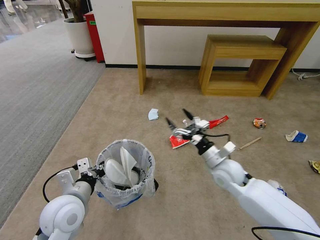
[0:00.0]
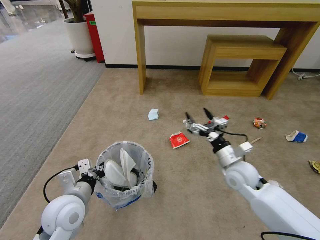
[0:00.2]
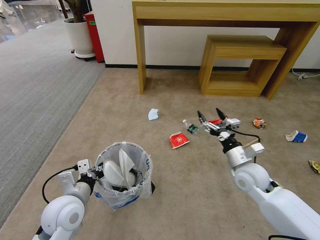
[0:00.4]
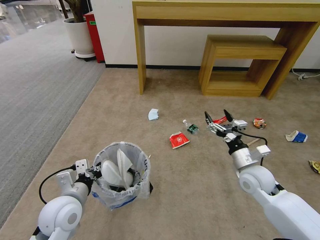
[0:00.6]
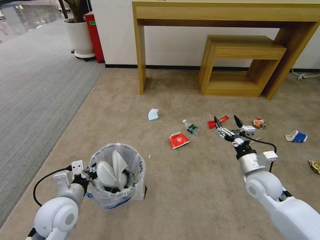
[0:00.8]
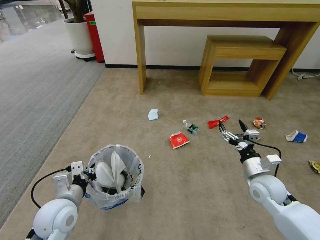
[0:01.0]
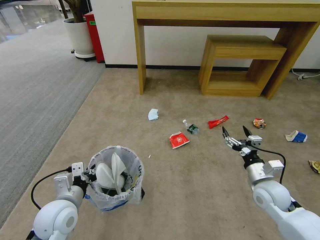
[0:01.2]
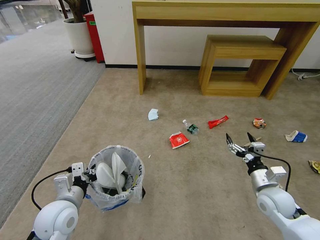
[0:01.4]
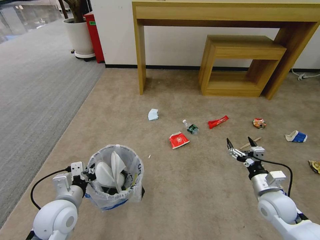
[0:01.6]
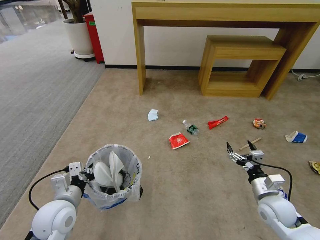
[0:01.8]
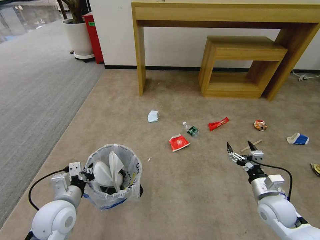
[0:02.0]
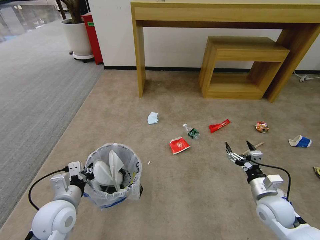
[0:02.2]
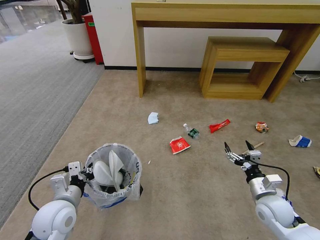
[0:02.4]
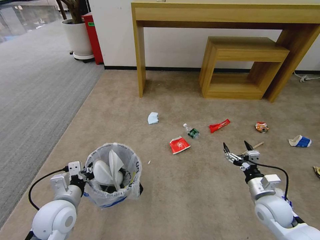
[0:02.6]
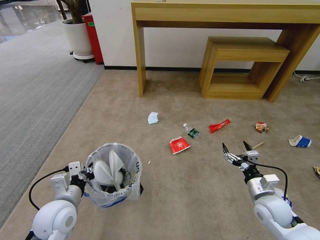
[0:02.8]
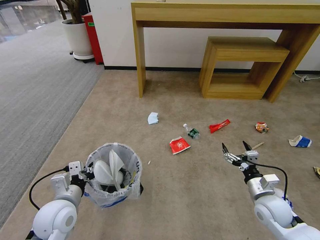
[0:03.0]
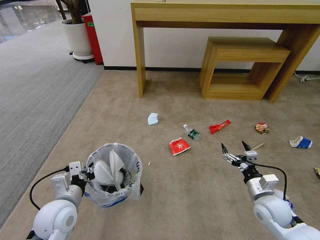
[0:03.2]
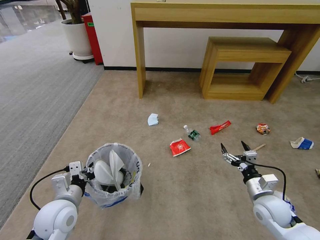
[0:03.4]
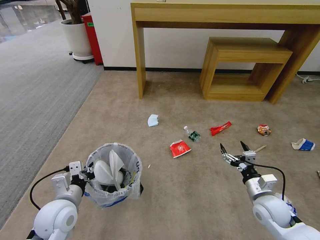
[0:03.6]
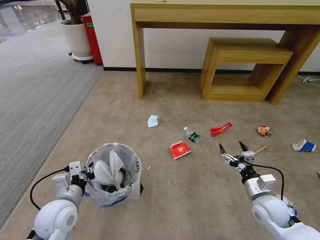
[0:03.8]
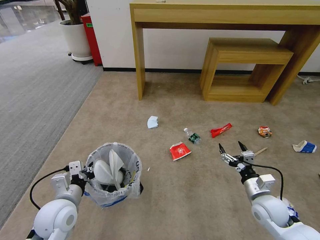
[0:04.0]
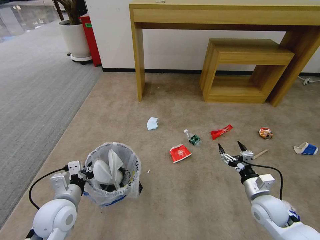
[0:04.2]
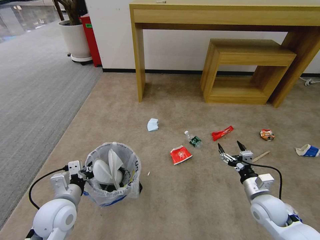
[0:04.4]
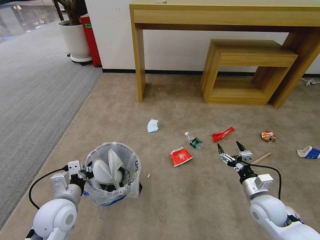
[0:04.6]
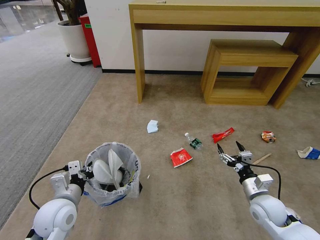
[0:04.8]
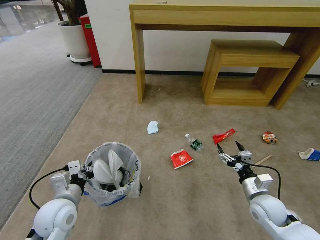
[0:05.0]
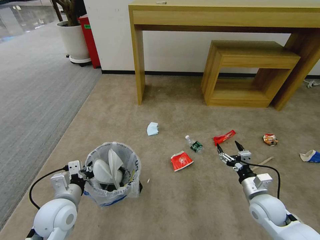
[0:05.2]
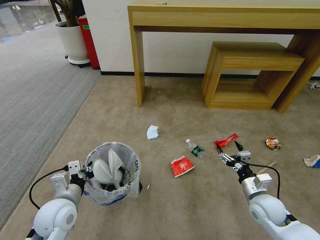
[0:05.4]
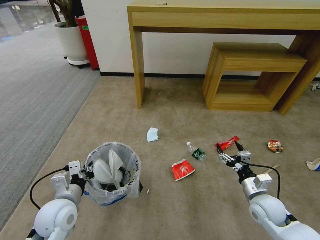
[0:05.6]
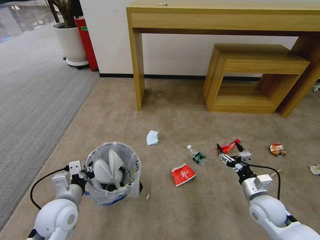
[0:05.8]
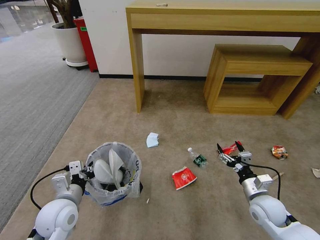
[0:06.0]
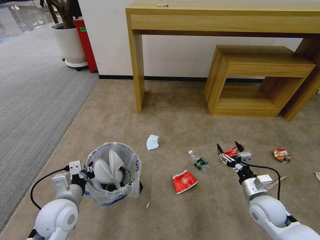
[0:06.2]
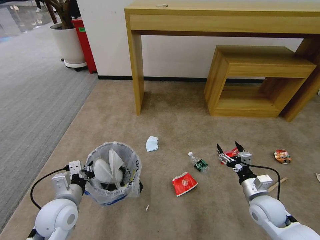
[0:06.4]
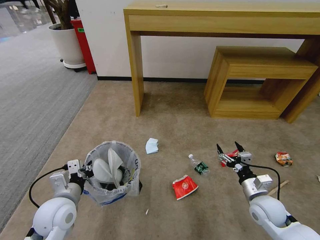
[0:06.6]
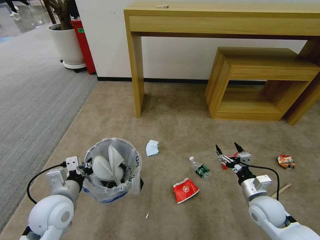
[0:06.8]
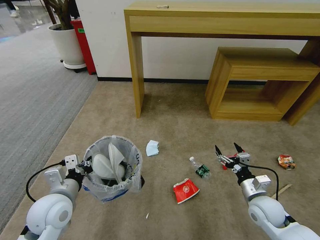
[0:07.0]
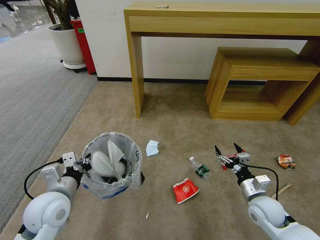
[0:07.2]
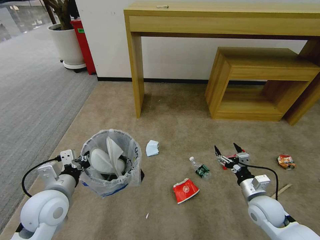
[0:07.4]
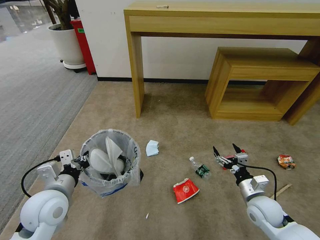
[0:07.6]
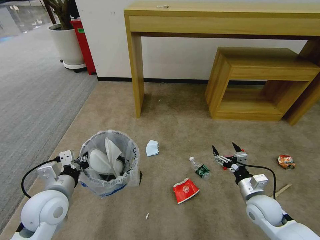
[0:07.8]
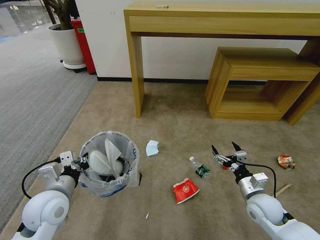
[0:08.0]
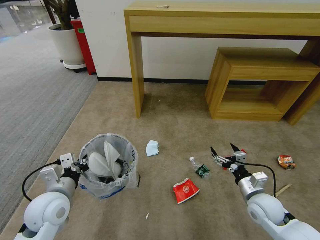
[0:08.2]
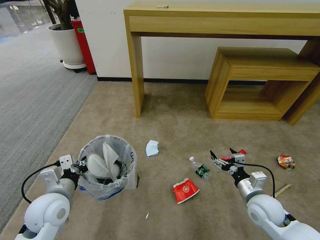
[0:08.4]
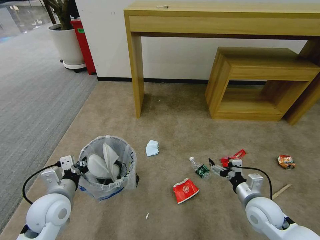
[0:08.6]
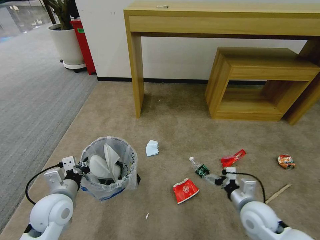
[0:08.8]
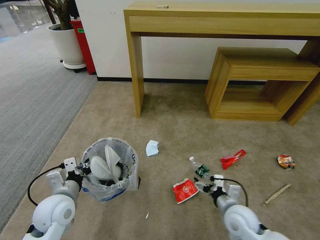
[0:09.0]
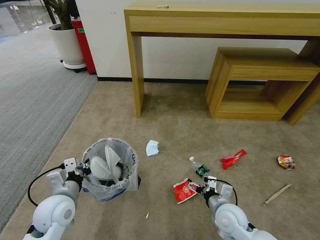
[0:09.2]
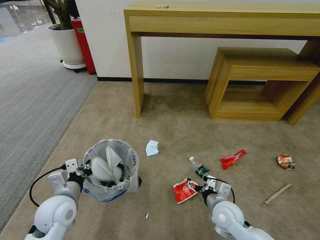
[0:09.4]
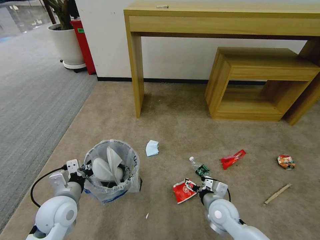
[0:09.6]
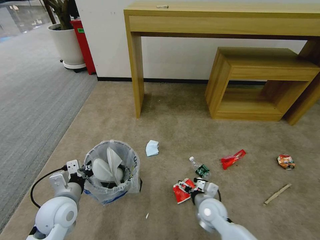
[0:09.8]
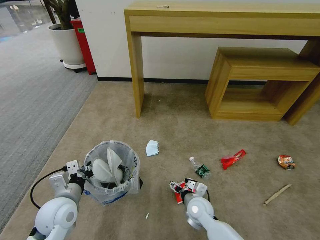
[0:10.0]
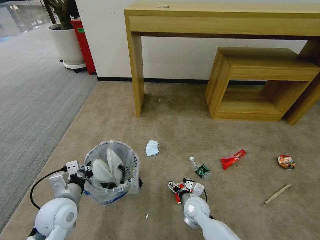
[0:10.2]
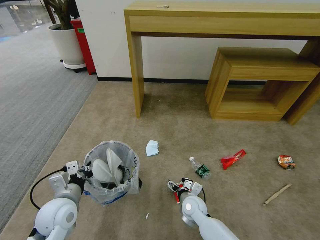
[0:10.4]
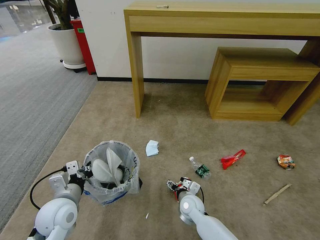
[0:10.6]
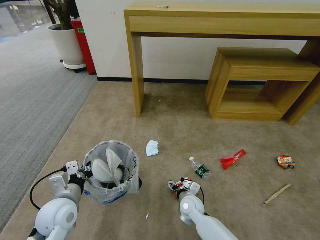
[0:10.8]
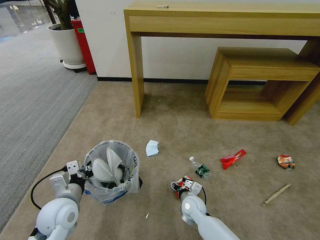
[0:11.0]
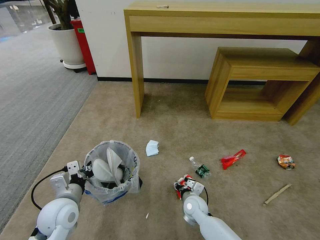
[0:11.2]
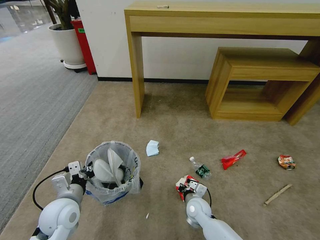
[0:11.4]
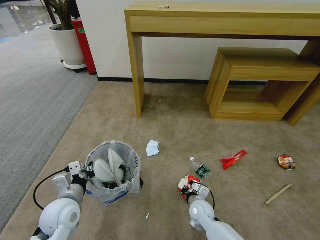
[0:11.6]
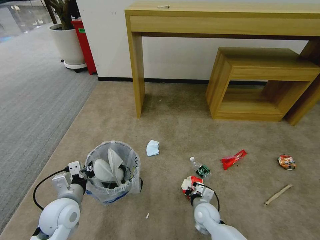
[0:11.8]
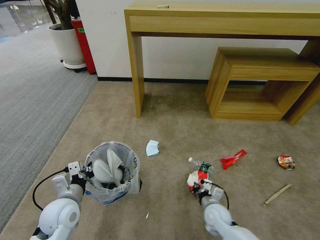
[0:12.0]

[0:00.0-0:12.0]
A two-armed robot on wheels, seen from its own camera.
Task of the whole recording: Pick up the trash bin and place the garbage on the floor into it.
0:00.0 to 0:01.6: The right gripper moves to the right and backward, approximately 15 cm.
0:01.6 to 0:03.0: The grippers move only a little.
0:03.0 to 0:04.4: The two grippers keep their place.
0:06.0 to 0:07.6: The left gripper is displaced upward by approximately 5 cm.
0:07.6 to 0:09.0: The right gripper moves to the left, approximately 10 cm. Meanwhile the left gripper shifts by approximately 5 cm.
0:09.0 to 0:10.4: The right gripper is displaced to the left, downward and forward by approximately 15 cm.
0:10.4 to 0:12.0: The right gripper shifts about 10 cm to the right, and closes its fingers.

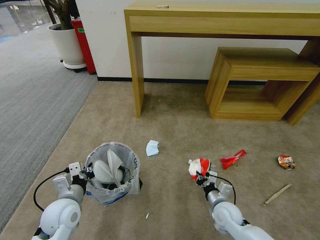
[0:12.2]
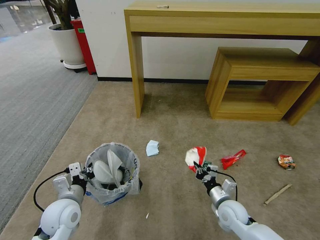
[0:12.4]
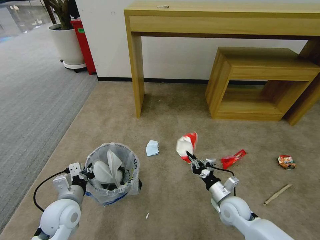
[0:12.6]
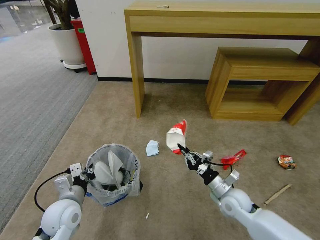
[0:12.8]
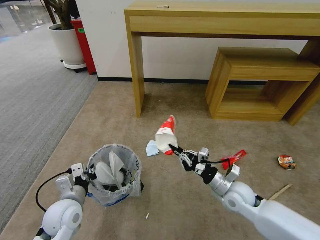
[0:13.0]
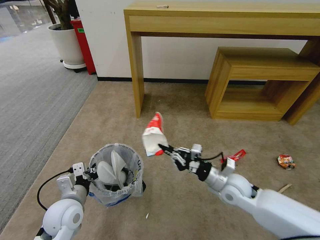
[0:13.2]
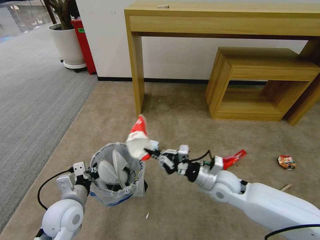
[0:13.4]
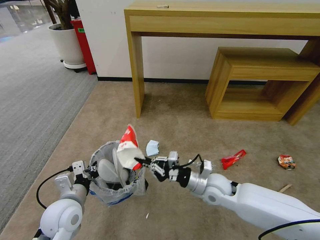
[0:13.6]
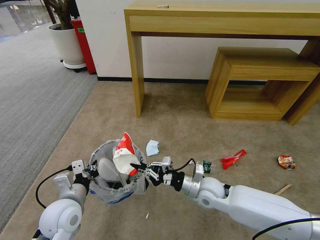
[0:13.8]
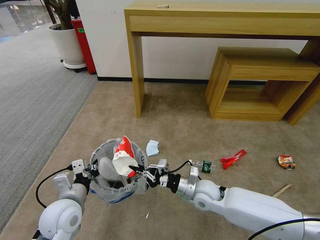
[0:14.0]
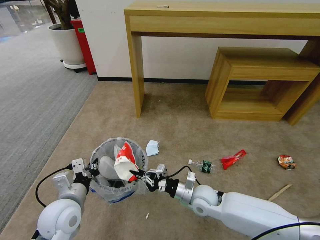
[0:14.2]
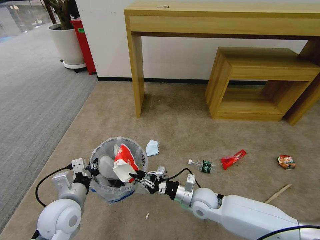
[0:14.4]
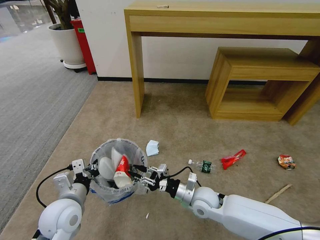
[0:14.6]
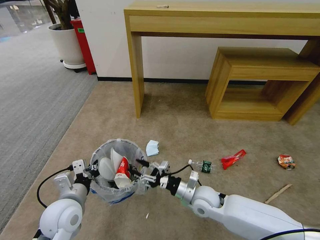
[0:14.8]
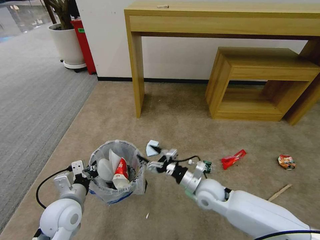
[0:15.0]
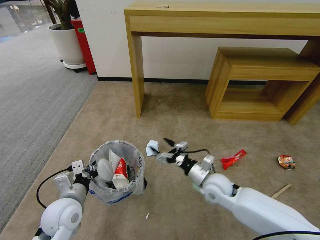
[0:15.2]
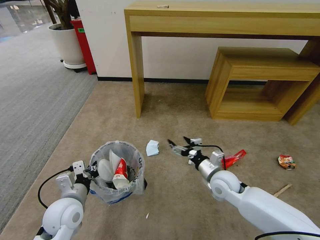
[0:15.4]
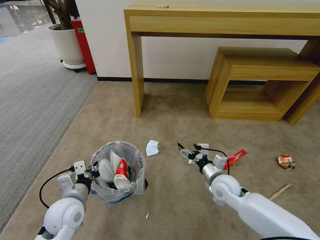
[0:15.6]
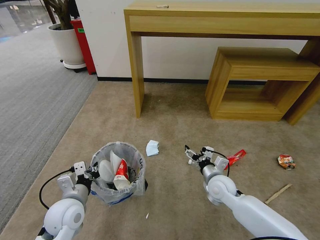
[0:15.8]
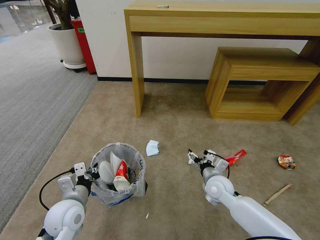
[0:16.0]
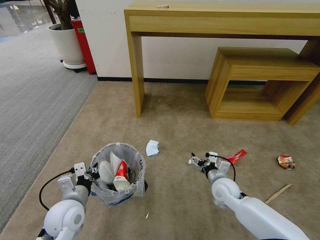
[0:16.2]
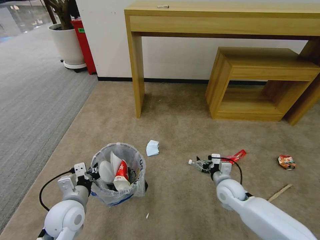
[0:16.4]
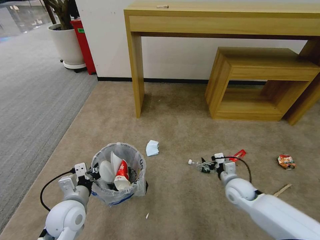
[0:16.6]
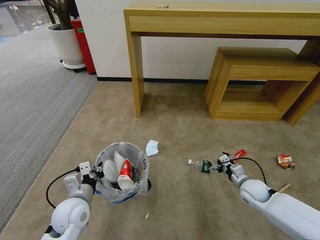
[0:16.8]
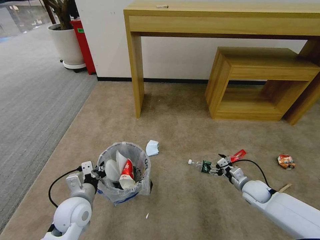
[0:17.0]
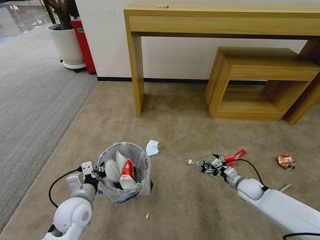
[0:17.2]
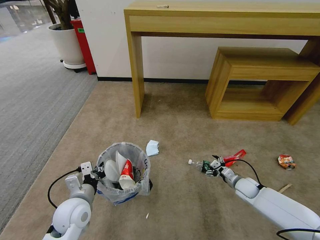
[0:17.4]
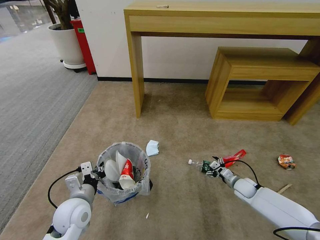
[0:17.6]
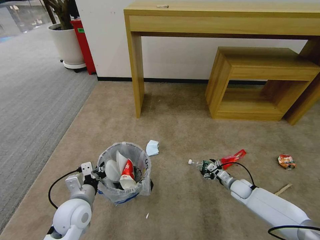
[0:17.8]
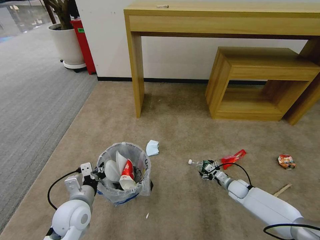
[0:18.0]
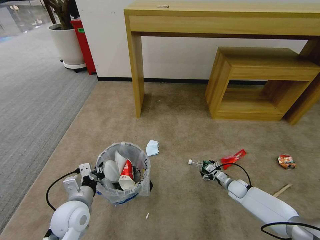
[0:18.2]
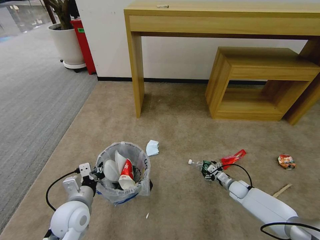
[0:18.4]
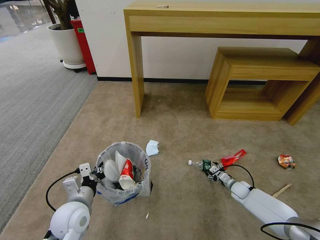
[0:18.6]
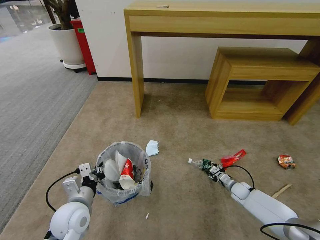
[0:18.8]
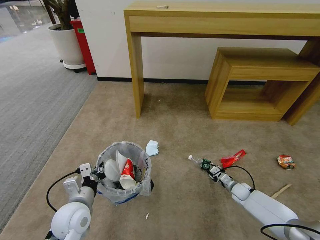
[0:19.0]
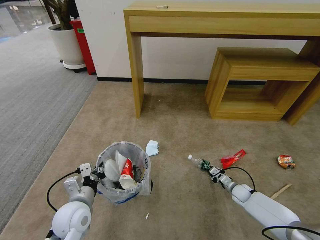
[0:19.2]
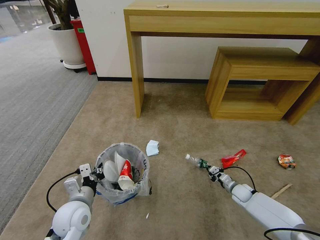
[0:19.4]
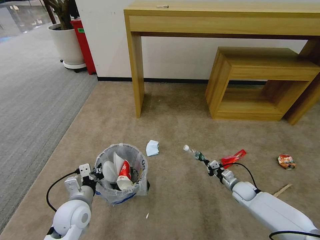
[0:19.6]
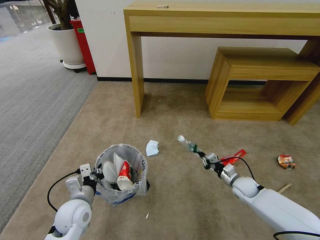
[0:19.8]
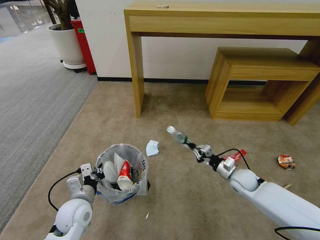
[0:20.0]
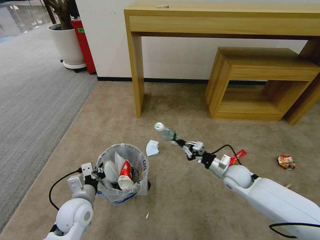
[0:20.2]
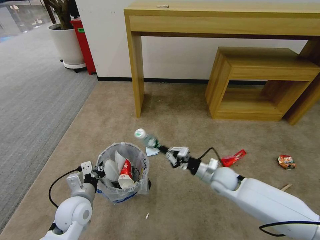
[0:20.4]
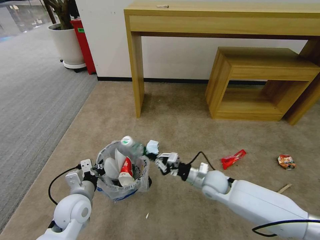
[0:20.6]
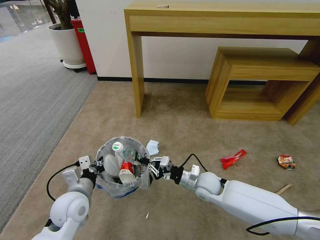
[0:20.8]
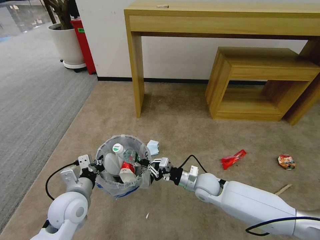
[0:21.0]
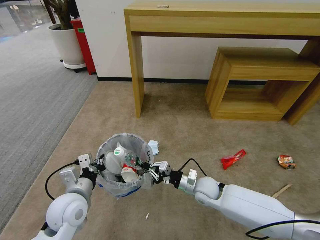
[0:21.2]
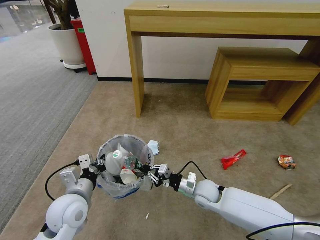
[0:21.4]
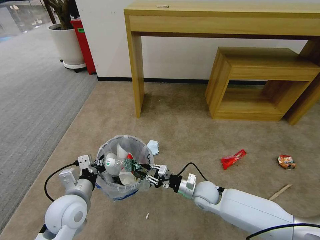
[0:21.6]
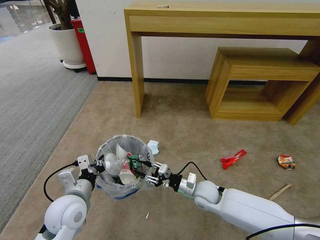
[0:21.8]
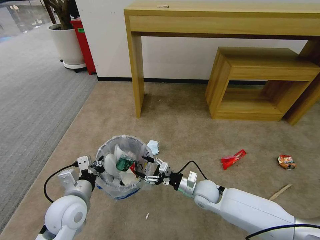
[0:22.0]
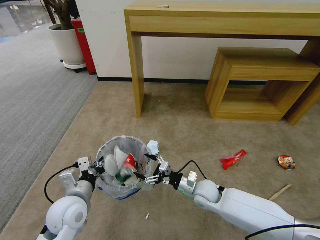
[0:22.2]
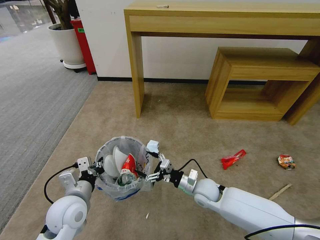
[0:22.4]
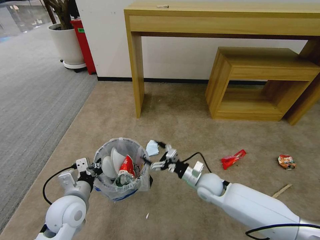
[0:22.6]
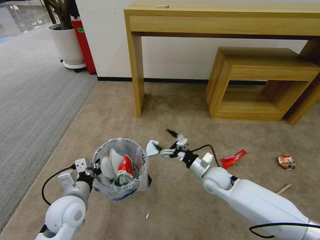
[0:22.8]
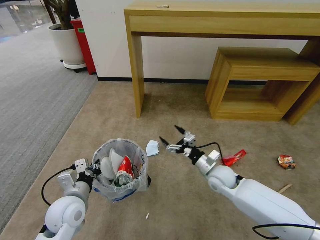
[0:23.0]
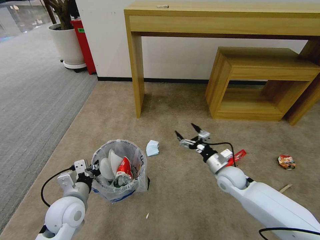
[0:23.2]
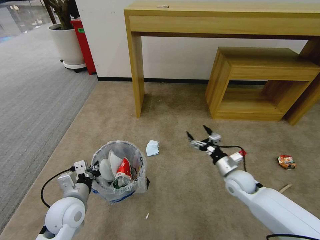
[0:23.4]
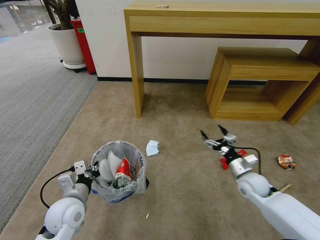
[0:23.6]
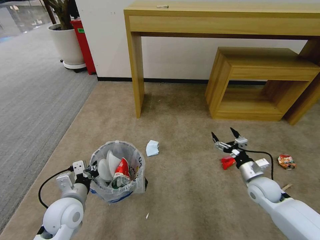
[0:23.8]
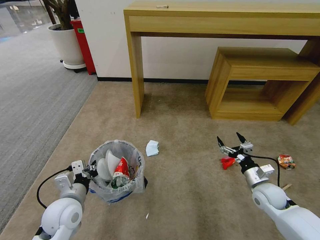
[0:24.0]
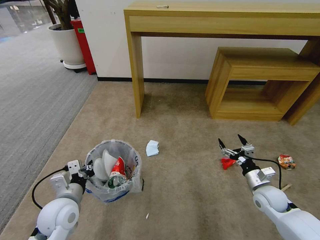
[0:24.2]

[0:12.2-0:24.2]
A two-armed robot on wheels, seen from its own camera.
Task of the whole recording: Pick up the trash bin and place the garbage on the floor into it.
0:12.2 to 0:13.8: The right gripper moves upward and to the left, approximately 10 cm.
0:13.8 to 0:15.2: The right gripper opens its fingers.
0:15.2 to 0:16.6: The right gripper travels to the right and downward by about 15 cm.
0:16.6 to 0:18.2: The right gripper travels downward, to the right and forward by about 15 cm.
0:18.2 to 0:19.8: The right gripper is displaced upward by about 5 cm, and closes its fingers.
0:19.8 to 0:21.2: The left gripper goes some 5 cm upward, while the right gripper is displaced to the left by some 20 cm.
0:21.2 to 0:22.6: The right gripper opens.
0:22.6 to 0:24.2: The right gripper moves to the right, some 20 cm.
